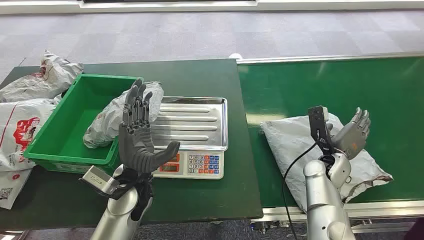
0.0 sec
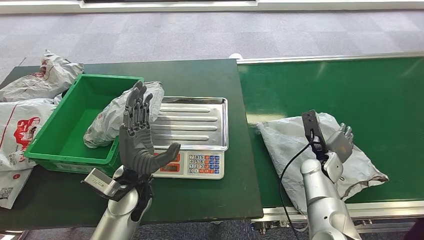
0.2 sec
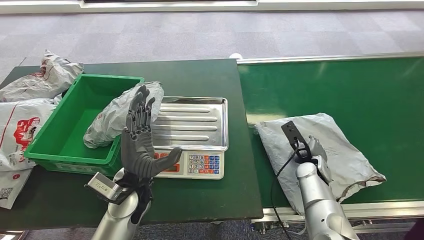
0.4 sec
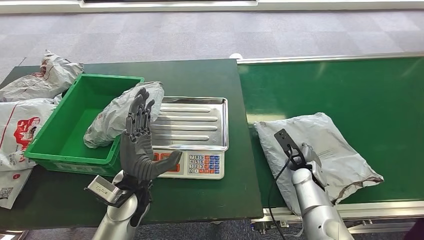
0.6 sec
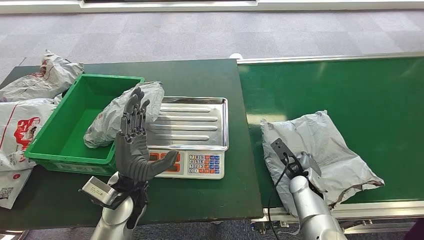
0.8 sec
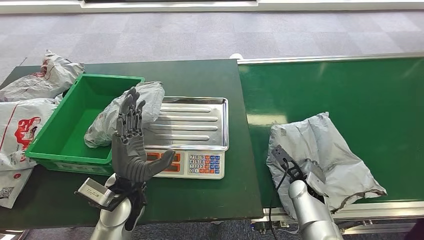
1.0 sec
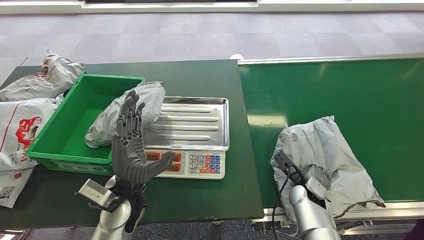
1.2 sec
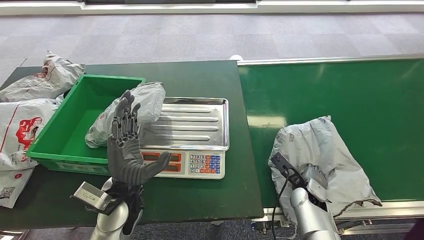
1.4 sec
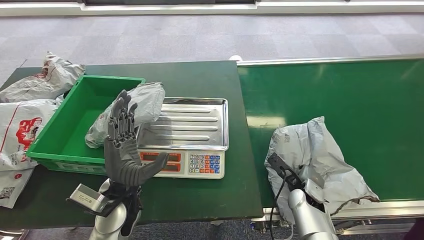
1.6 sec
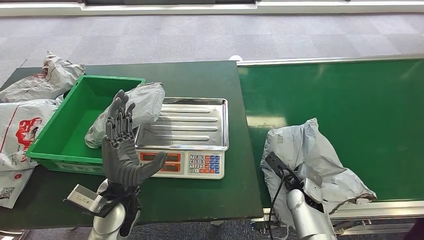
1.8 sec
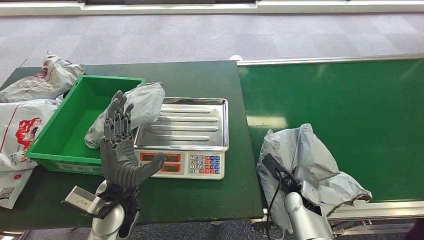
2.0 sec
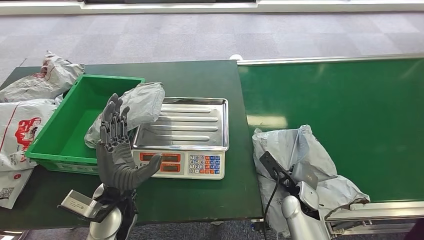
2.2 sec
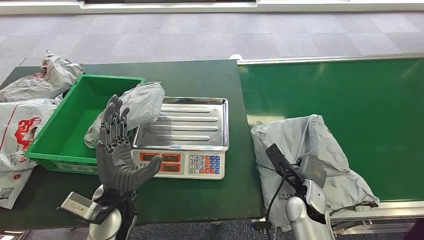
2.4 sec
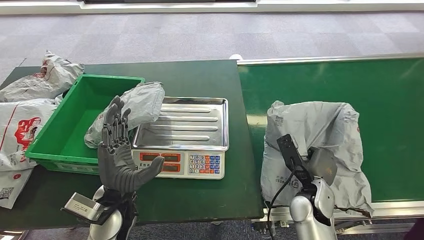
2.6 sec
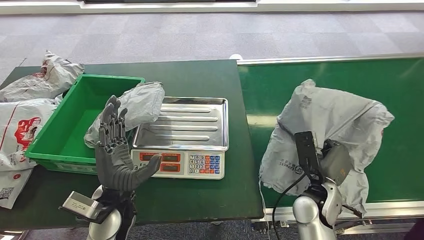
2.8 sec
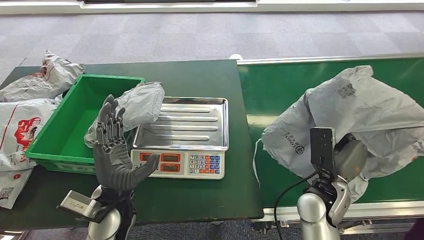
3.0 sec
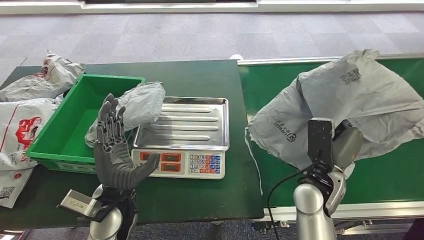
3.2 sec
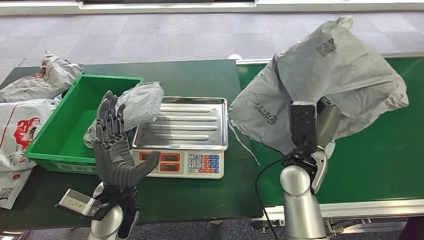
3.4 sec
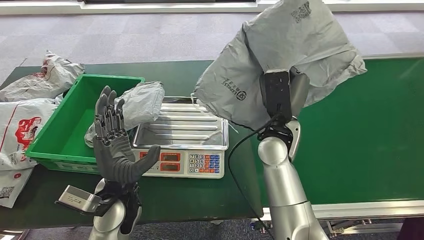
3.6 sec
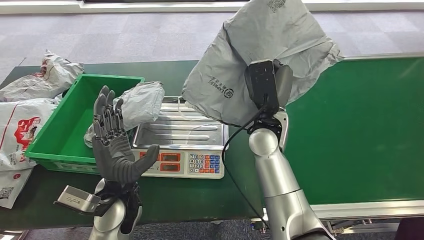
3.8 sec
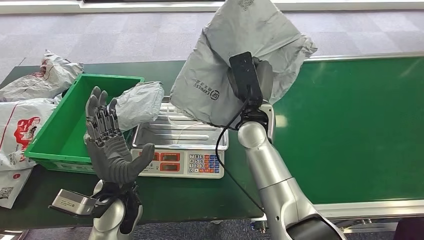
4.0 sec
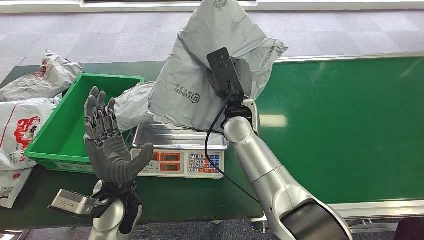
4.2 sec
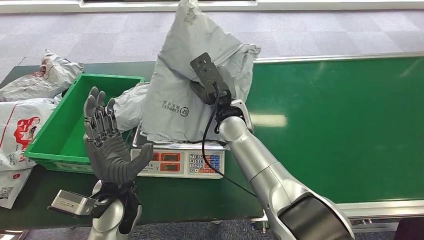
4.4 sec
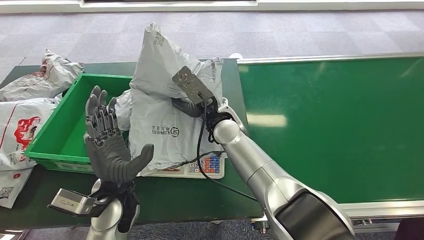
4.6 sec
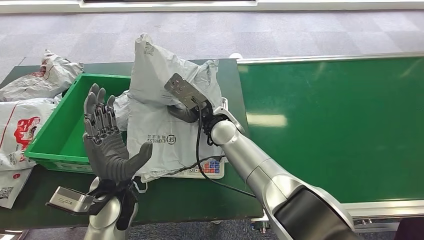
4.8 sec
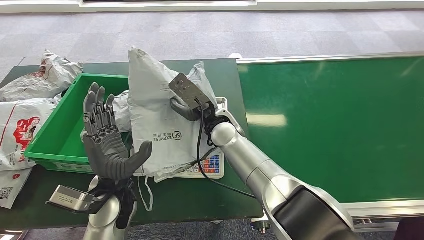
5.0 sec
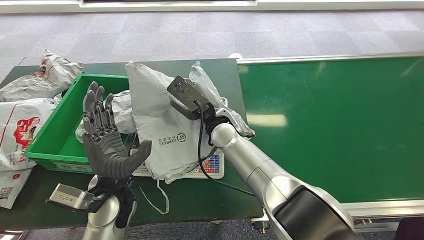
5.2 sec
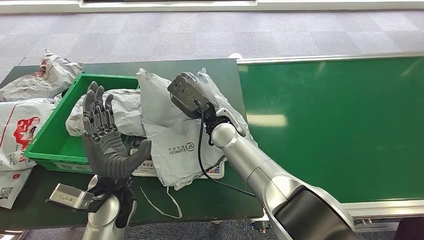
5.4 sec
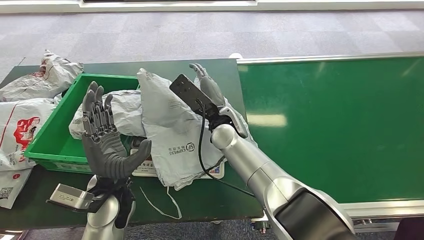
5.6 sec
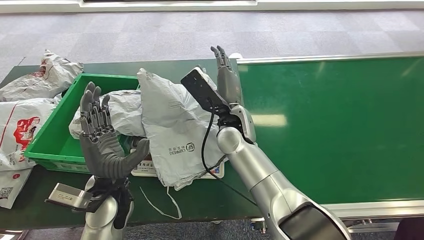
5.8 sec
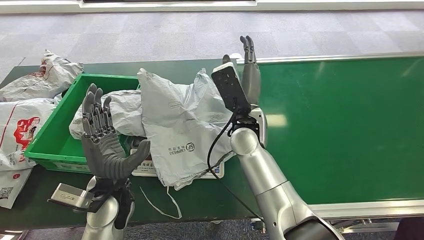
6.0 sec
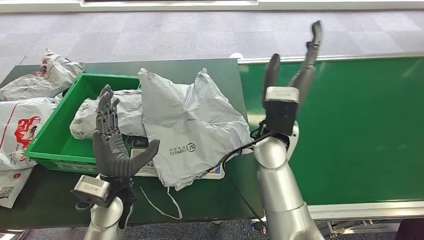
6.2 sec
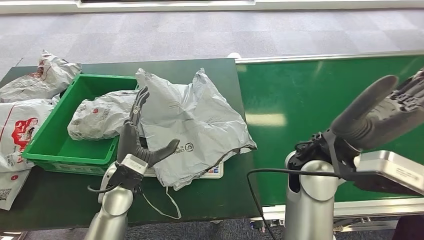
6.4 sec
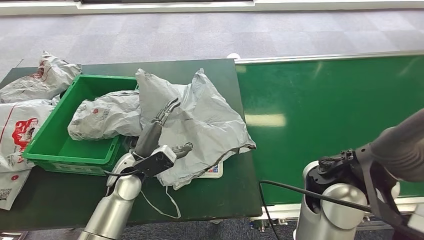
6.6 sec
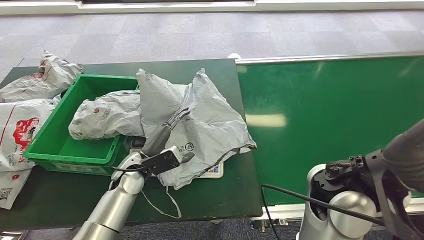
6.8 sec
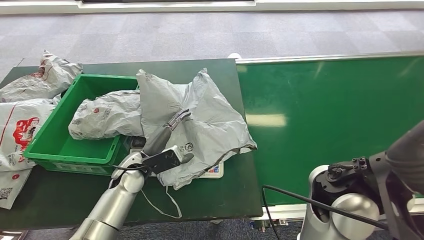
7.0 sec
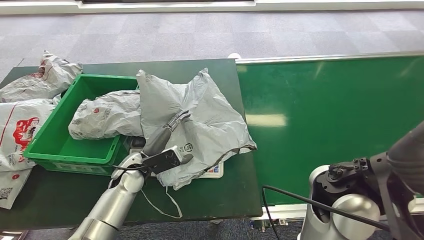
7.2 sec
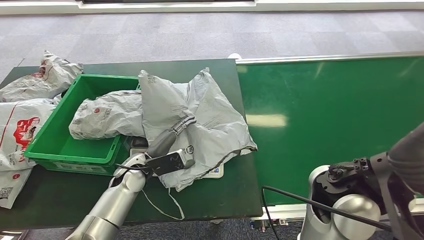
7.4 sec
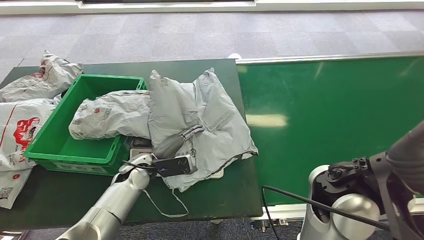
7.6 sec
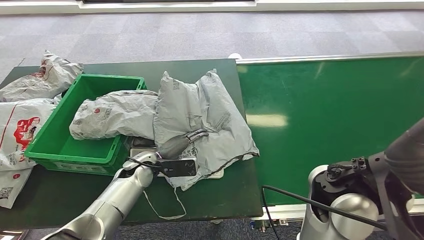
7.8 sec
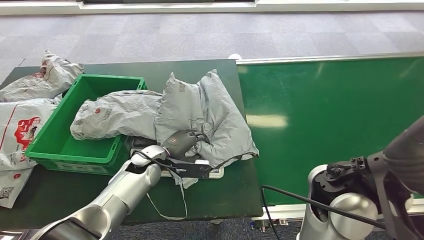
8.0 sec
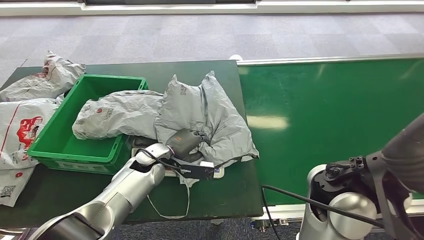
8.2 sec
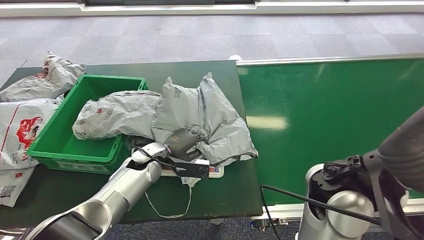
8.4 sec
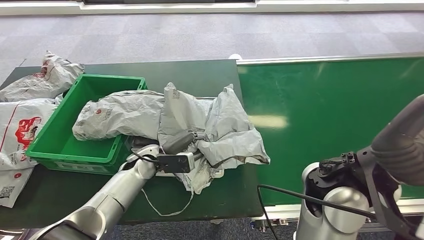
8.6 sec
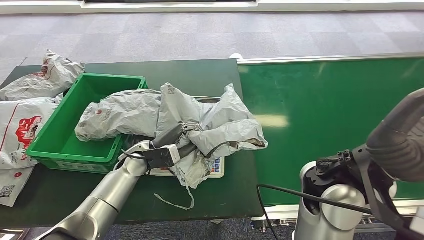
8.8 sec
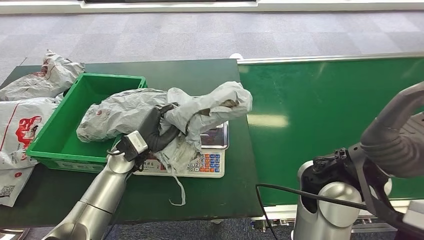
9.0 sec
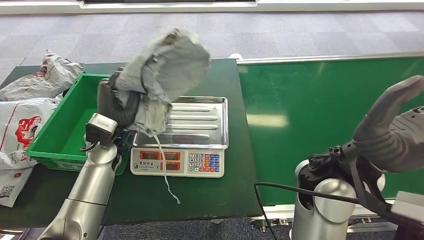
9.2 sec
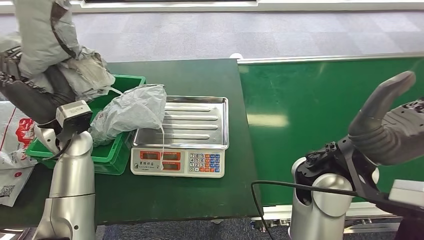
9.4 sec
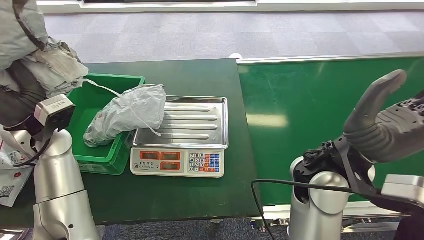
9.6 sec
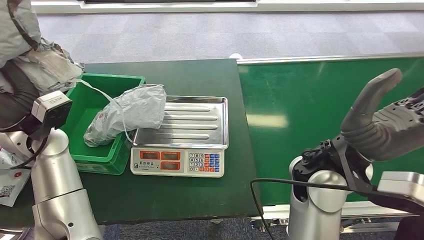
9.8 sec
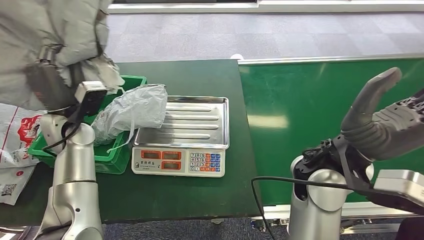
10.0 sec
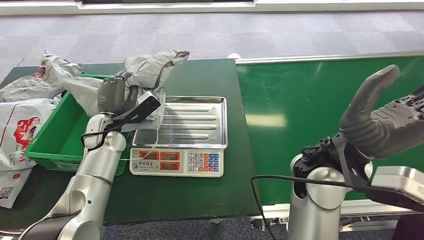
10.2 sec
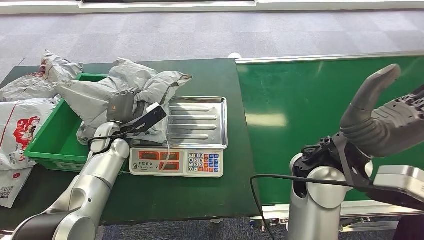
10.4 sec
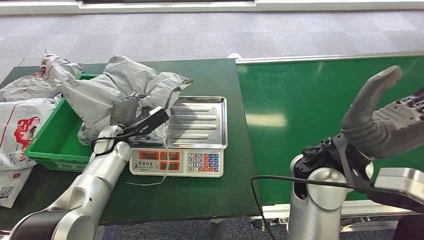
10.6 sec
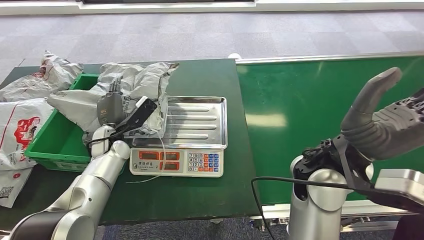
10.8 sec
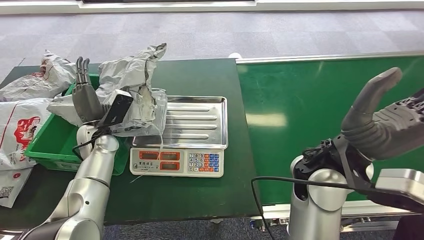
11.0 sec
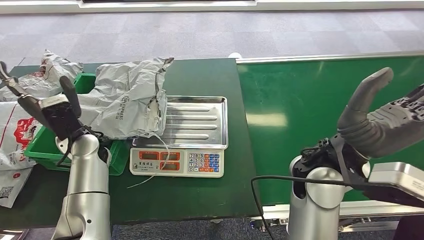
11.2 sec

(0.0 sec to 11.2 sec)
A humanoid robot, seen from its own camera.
Step, 0.0 sec - 3.2 sec: Pick up the package from the conveyor belt.
Step, 3.4 sec - 6.8 sec: Place the package onto the inbound machine.
Step, 7.0 sec - 9.4 sec: Pick up the package from the inbound machine.
Step, 9.6 sec - 11.2 sec: Place the package into the parcel locker.
